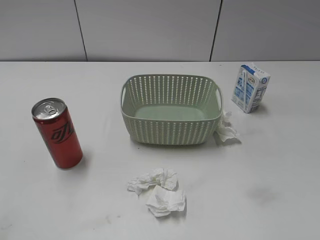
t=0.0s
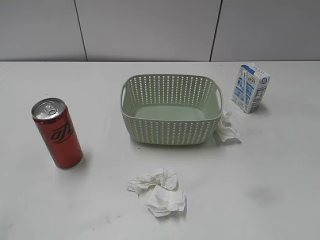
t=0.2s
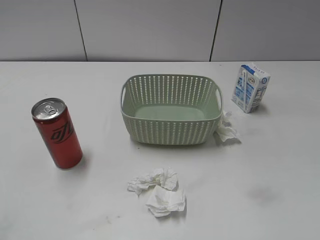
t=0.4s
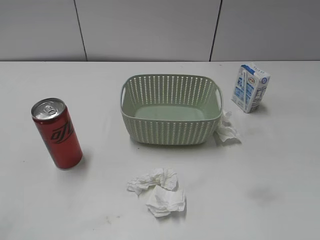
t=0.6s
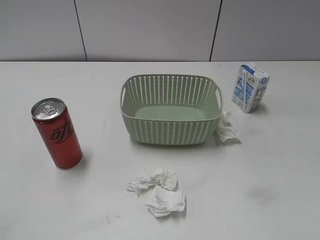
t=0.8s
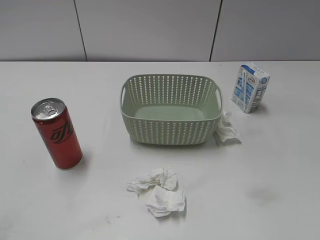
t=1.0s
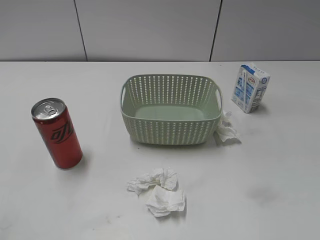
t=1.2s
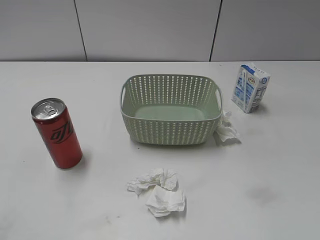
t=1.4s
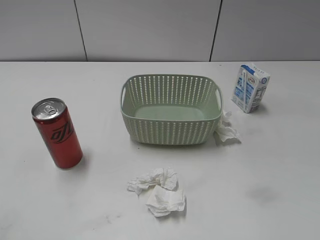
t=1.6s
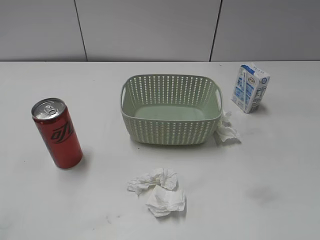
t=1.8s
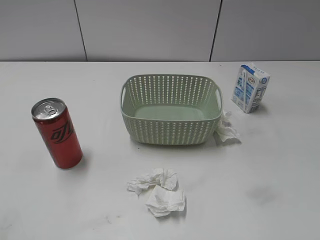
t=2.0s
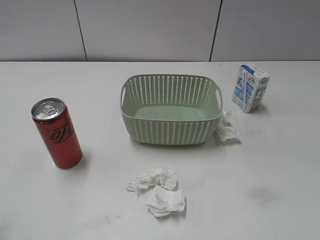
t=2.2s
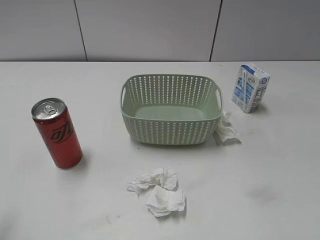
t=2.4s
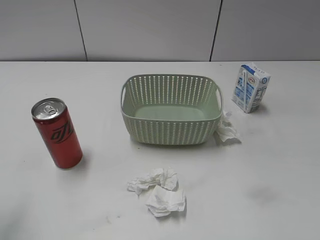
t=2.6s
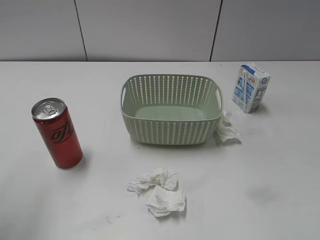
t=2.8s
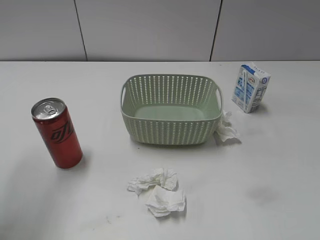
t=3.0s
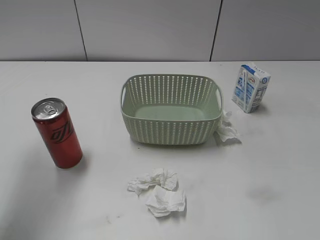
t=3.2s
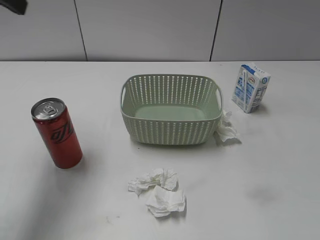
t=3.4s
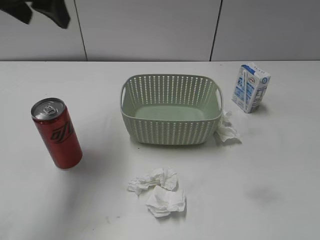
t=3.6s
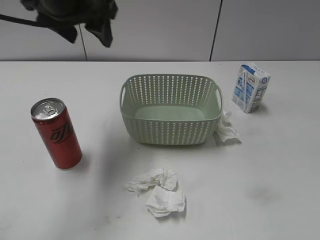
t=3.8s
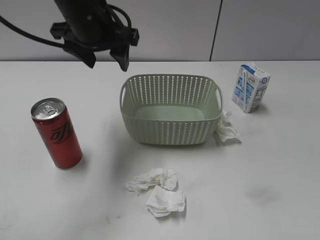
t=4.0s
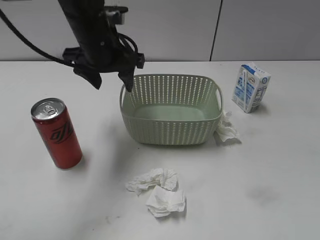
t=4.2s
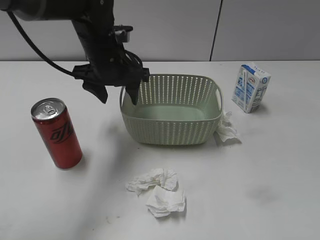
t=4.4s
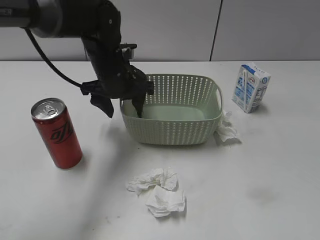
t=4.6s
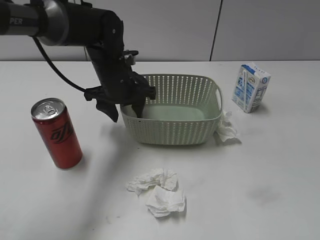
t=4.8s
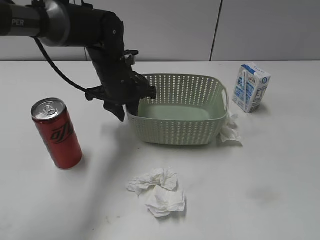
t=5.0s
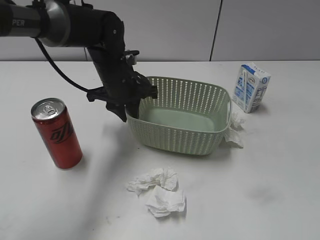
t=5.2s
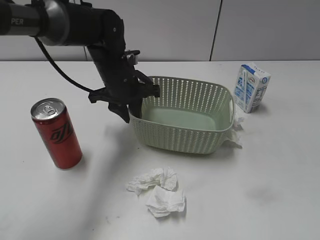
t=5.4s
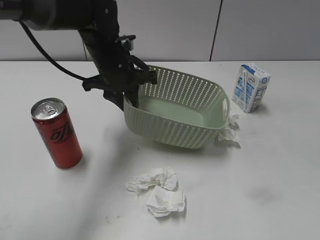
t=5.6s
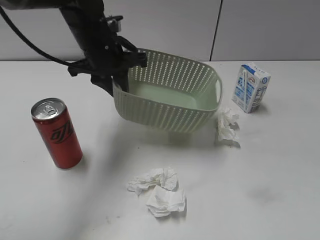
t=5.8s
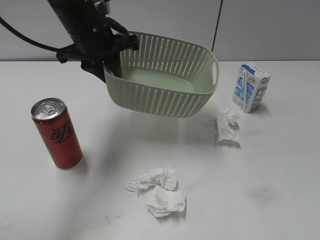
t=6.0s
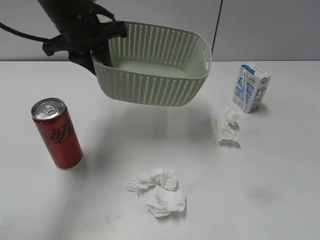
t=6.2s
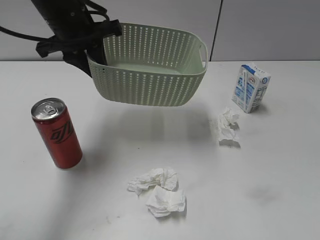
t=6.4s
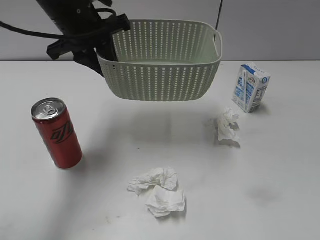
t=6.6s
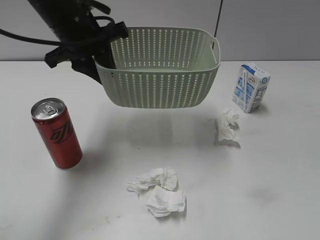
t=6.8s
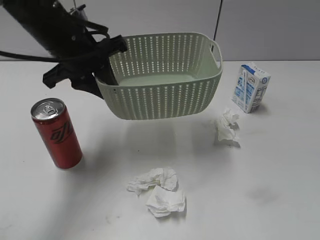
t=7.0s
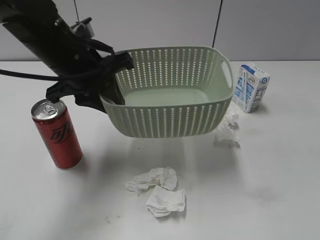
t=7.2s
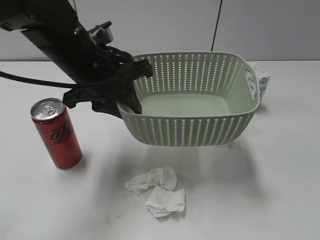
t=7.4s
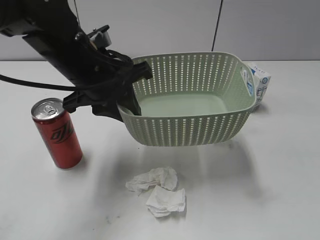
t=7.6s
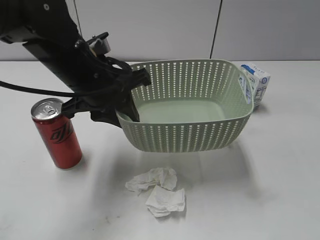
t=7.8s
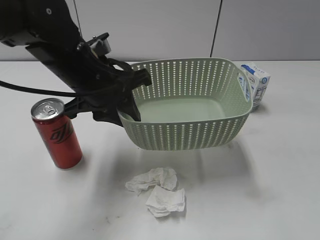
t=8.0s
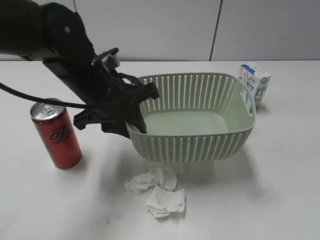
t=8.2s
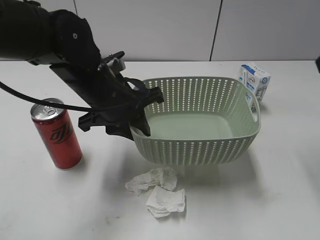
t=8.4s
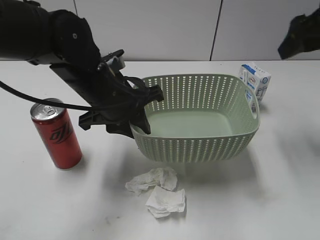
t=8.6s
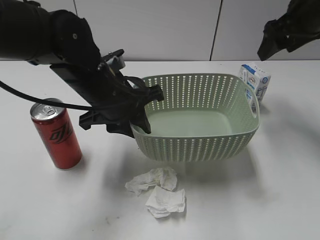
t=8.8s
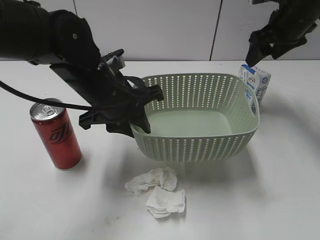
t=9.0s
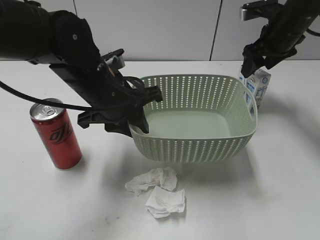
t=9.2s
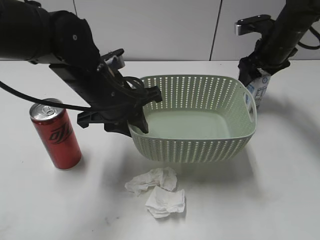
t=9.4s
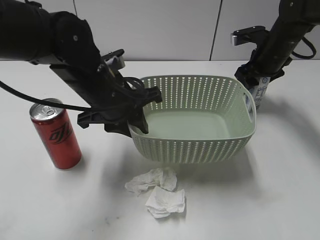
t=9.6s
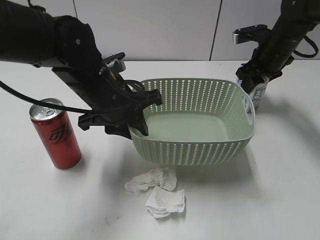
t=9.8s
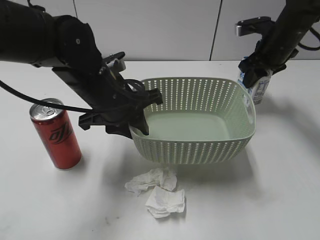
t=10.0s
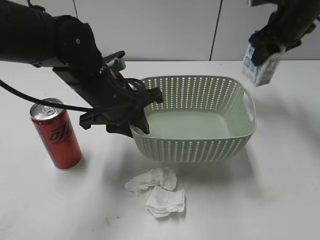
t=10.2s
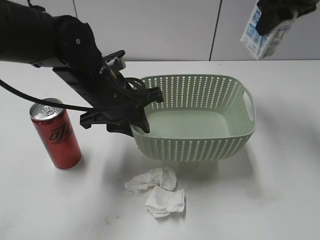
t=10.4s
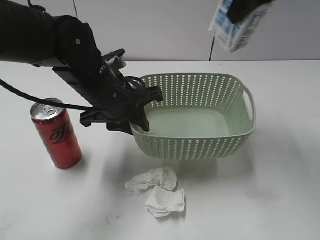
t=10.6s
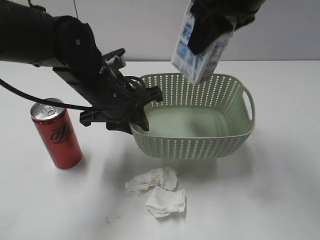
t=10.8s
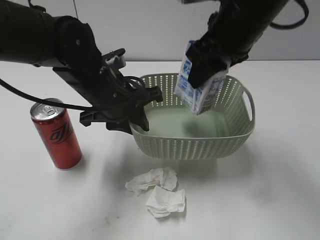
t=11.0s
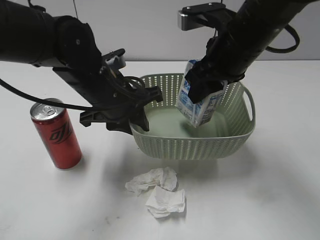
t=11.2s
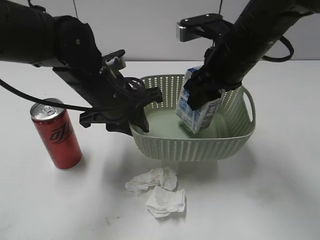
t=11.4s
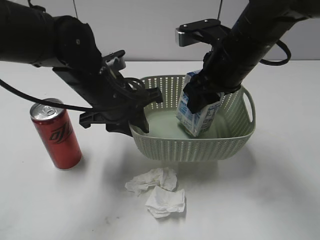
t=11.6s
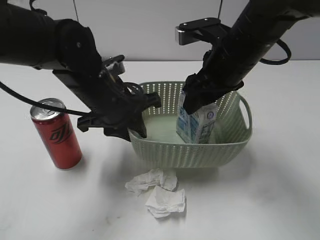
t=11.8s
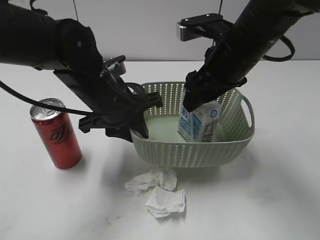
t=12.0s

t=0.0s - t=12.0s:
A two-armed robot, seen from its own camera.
Step, t=3.4s - t=5.2s: Grasp the basket with left gripper.
Step, t=5.4s - t=8.2s: Lift the basket with left gripper.
Step, t=8.4s - t=9.8s: Grasp the milk with right gripper.
t=1.6s - t=3.0s: The left gripper moves forward and upward, about 25 cm.
t=3.0s - t=4.4s: The left gripper is displaced to the right, downward and forward by some 30 cm.
t=4.4s - t=6.0s: The left gripper moves about 5 cm, and closes up.
t=6.0s - t=7.6s: The left gripper heads backward, covering about 10 cm.
t=7.6s - t=9.0s: The right gripper goes about 40 cm forward.
t=9.0s - t=10.4s: The right gripper is displaced upward by approximately 5 cm, and closes.
t=10.4s - t=12.0s: The right gripper shifts some 15 cm to the left, backward and downward, and opens its fingers.

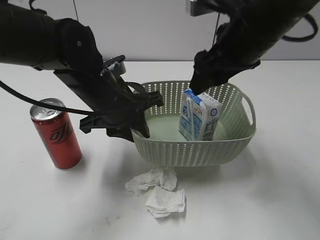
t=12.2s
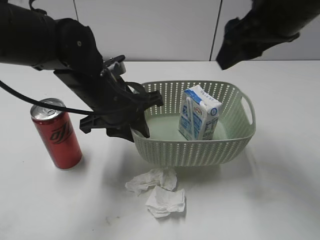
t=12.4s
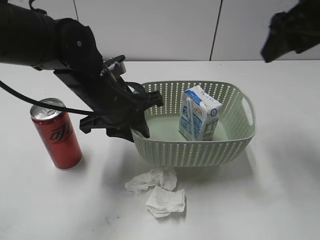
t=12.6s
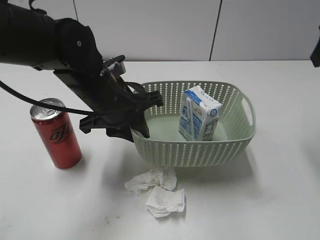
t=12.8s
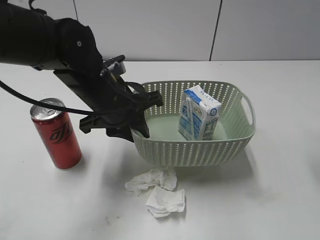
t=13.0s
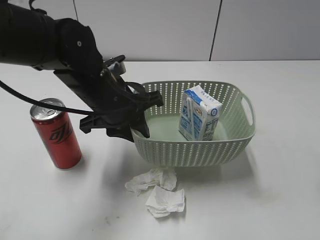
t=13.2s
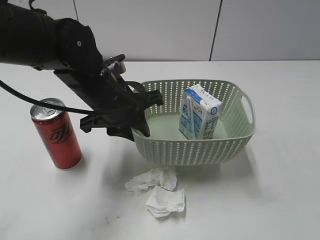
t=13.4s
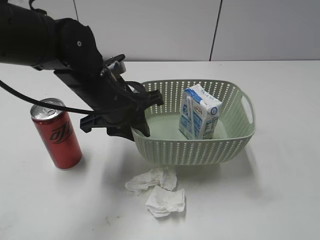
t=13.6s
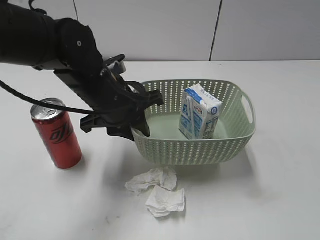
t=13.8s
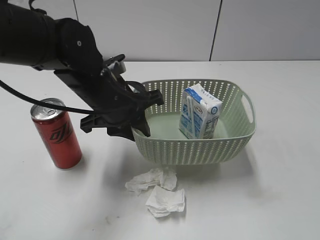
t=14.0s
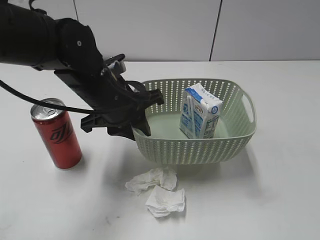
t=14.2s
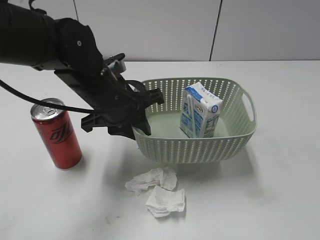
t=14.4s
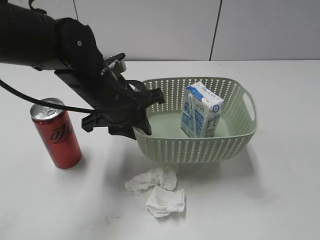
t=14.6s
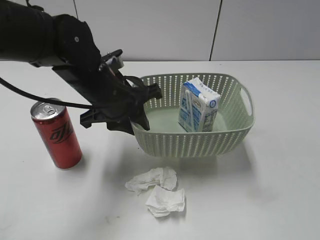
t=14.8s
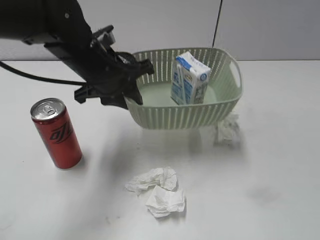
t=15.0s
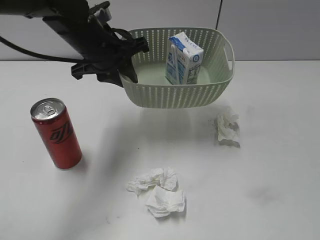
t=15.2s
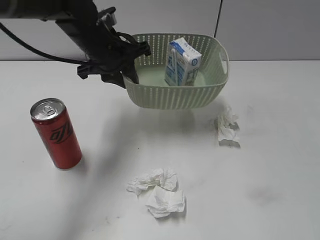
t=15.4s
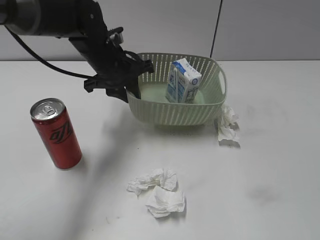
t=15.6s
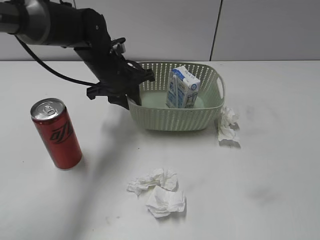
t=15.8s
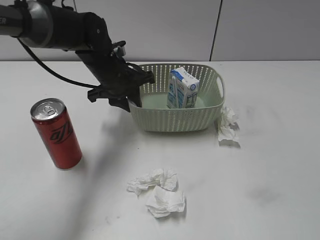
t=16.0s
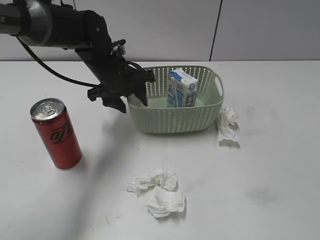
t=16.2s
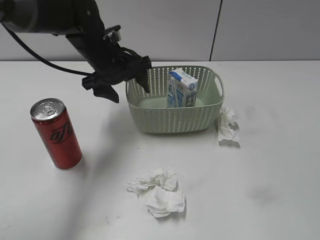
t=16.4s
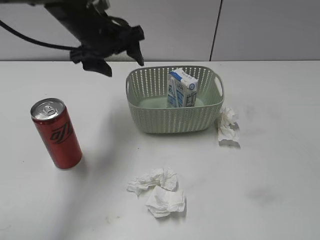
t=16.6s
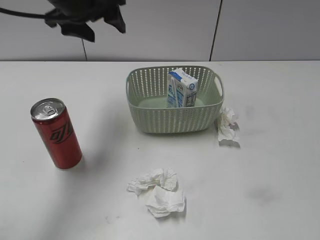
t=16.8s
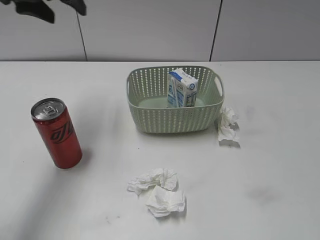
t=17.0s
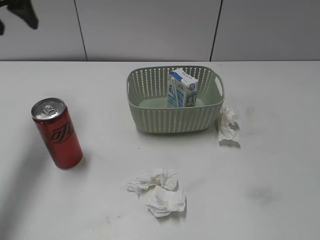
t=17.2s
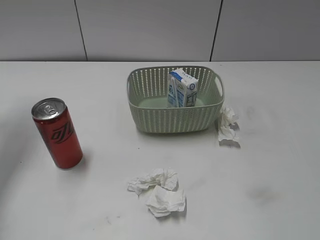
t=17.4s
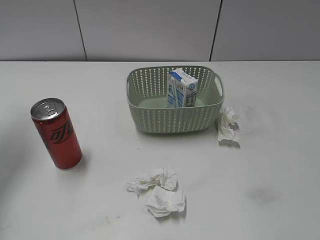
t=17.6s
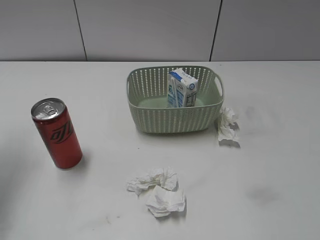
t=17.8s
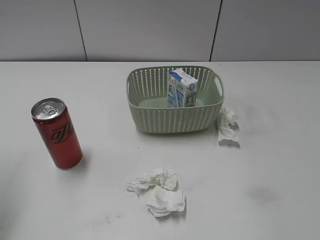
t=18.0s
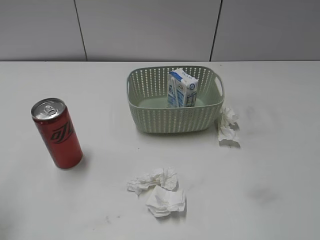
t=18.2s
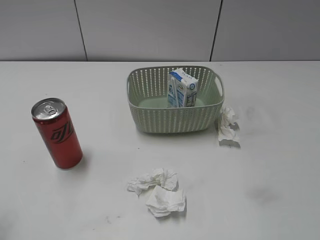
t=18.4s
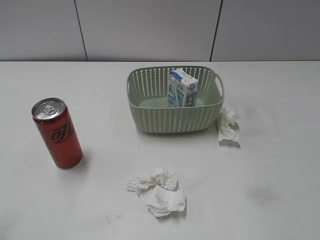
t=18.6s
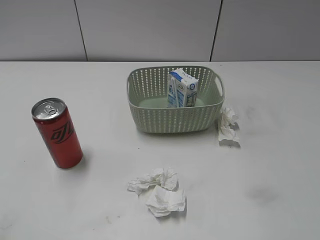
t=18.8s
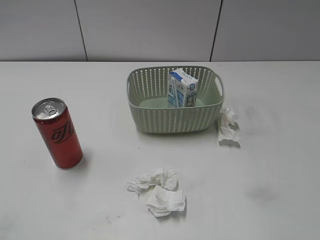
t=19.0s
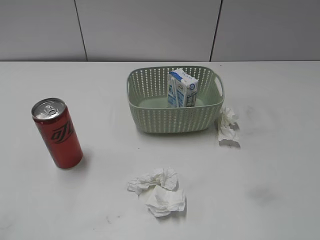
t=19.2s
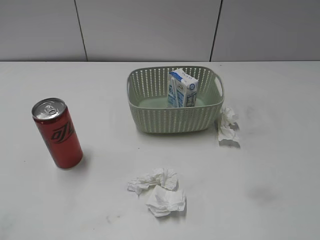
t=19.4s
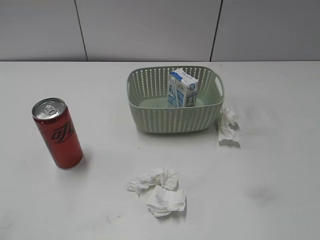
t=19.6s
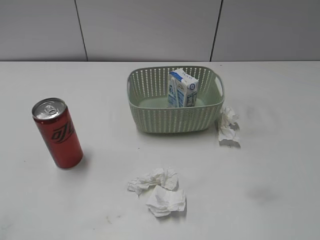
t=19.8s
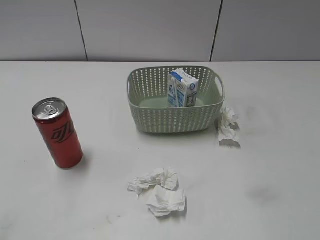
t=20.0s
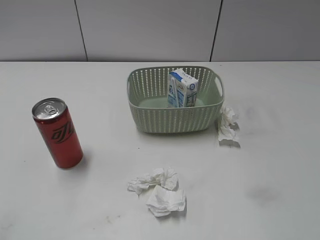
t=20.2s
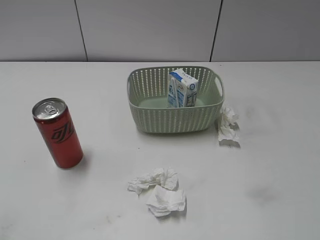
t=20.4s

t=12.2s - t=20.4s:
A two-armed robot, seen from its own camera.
Step, t=12.6s - t=16.2s: Place the basket on the table with left gripper.
t=12.2s - t=13.8s: The right gripper shifts approximately 30 cm backward and to the right.
t=13.8s - t=15.4s: The right gripper shifts some 10 cm backward. Meanwhile the left gripper is displaced forward by about 10 cm.
t=15.4s - t=17.2s: The left gripper moves to the left and upward, roughly 20 cm, and opens.
t=17.2s - t=18.8s: The left gripper is displaced backward by about 35 cm.
